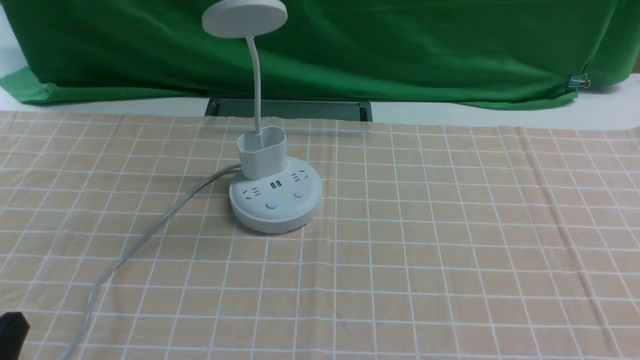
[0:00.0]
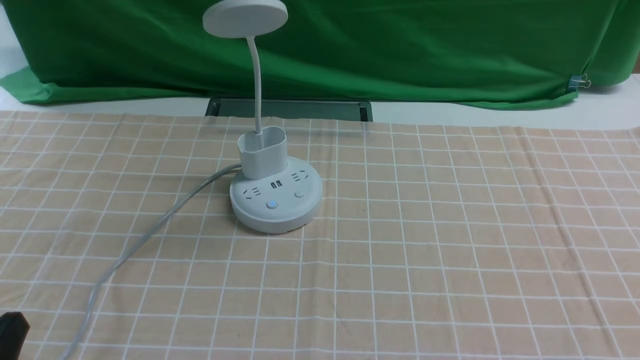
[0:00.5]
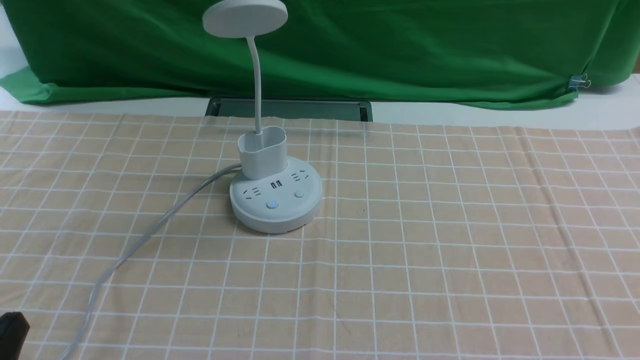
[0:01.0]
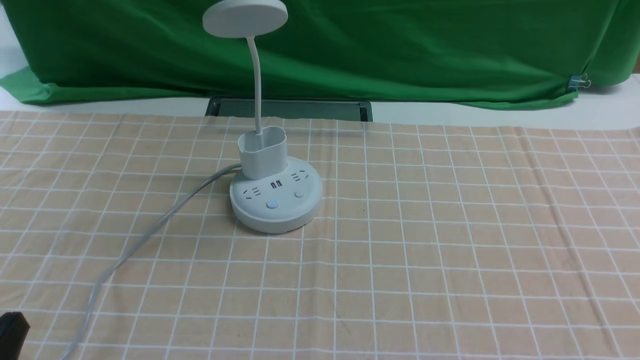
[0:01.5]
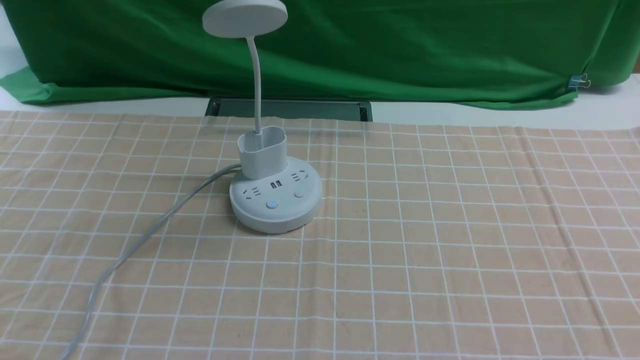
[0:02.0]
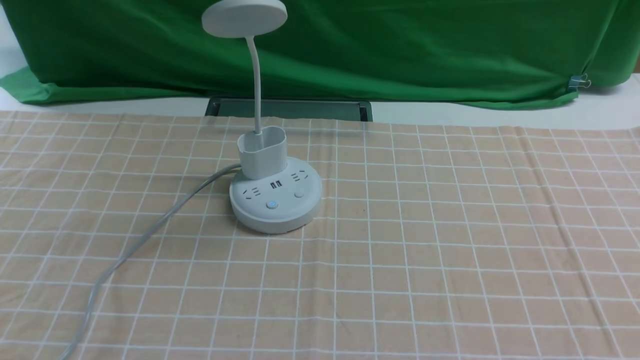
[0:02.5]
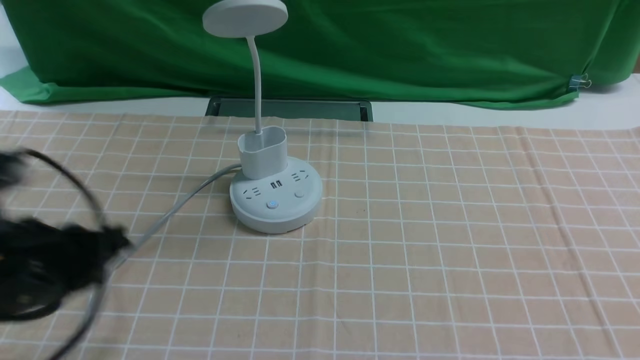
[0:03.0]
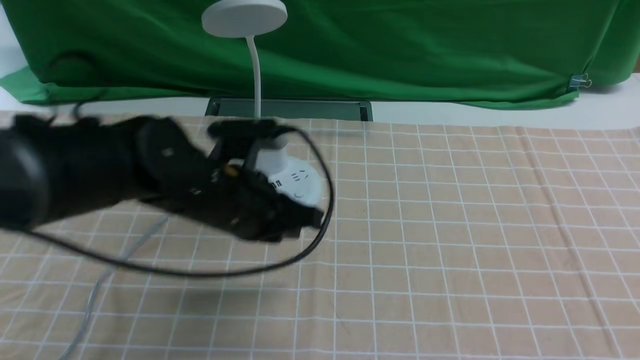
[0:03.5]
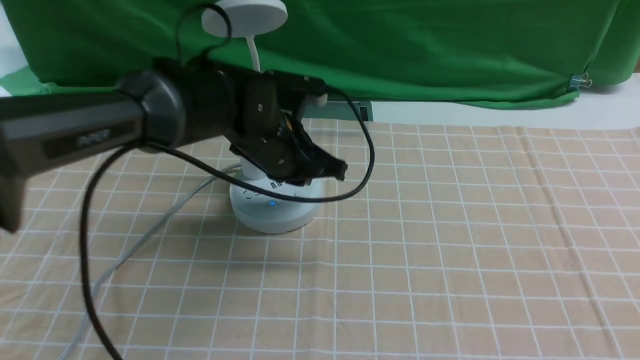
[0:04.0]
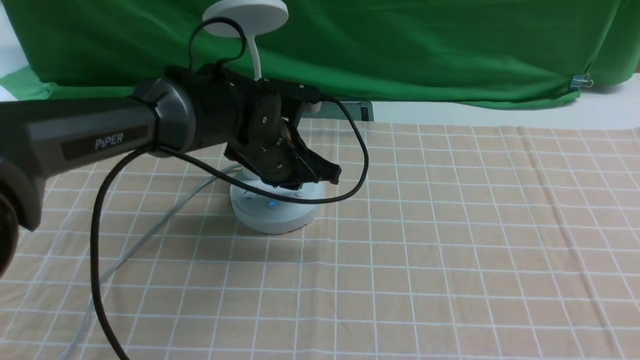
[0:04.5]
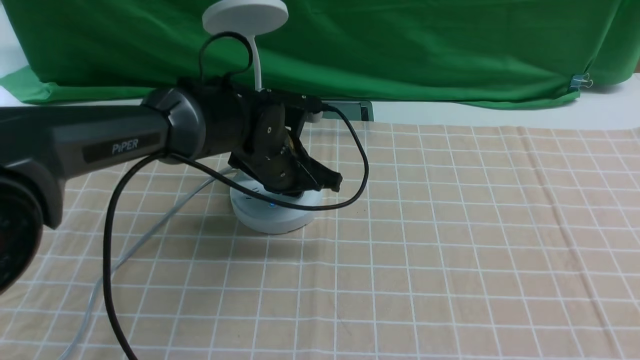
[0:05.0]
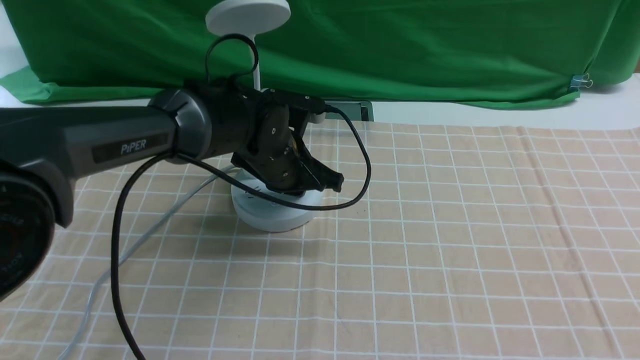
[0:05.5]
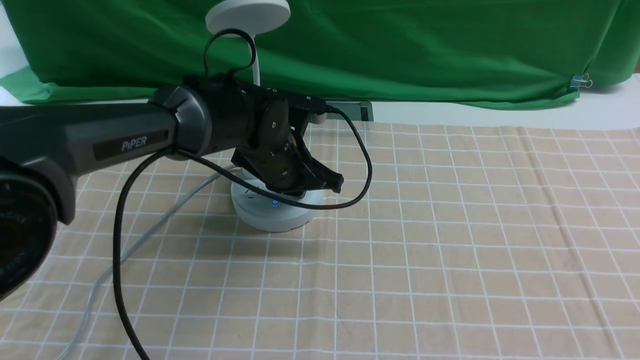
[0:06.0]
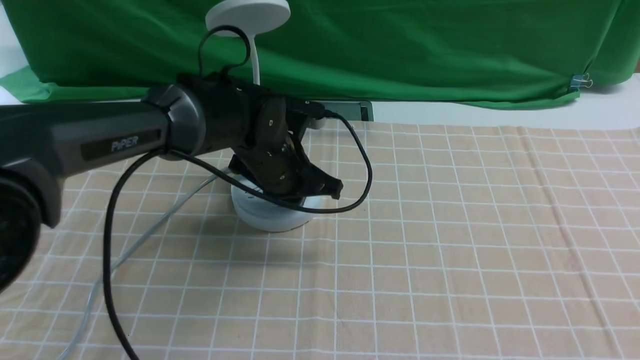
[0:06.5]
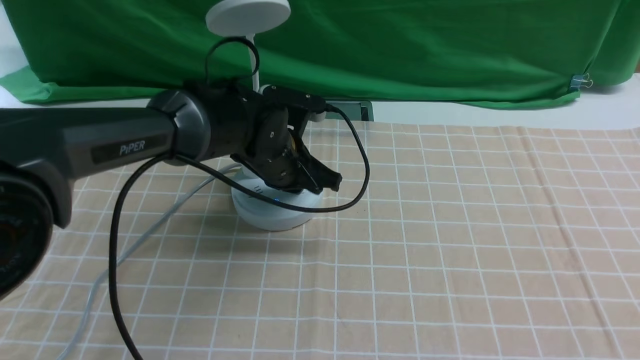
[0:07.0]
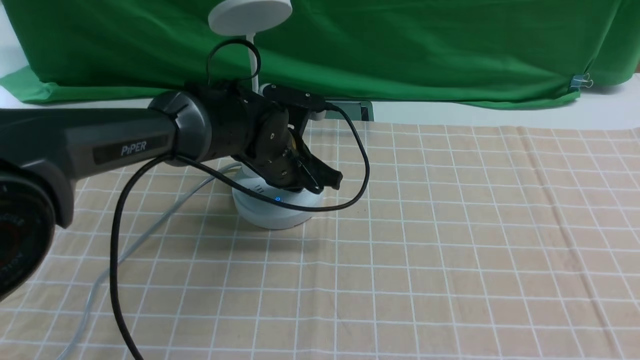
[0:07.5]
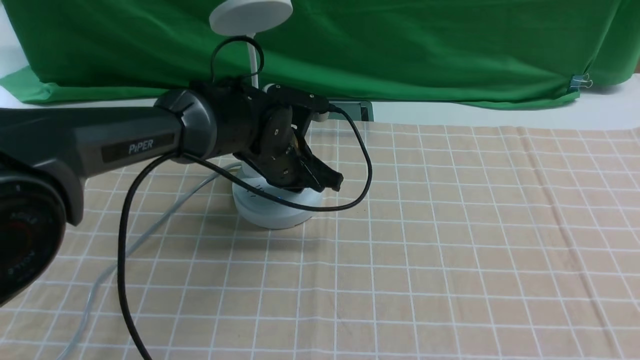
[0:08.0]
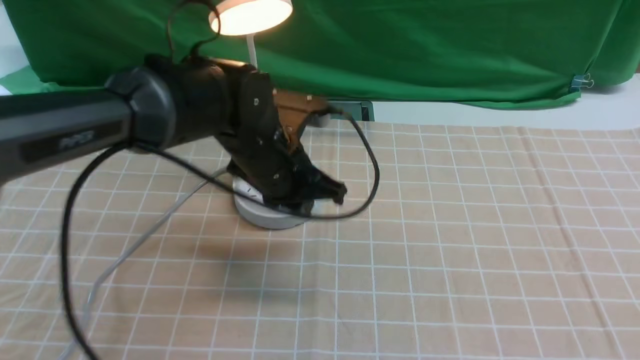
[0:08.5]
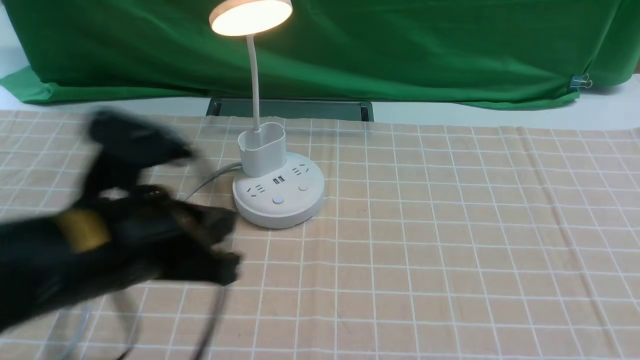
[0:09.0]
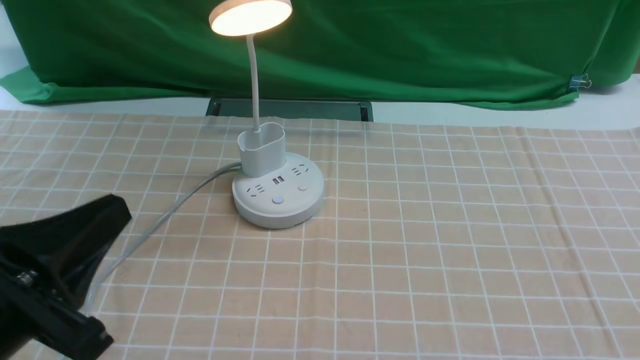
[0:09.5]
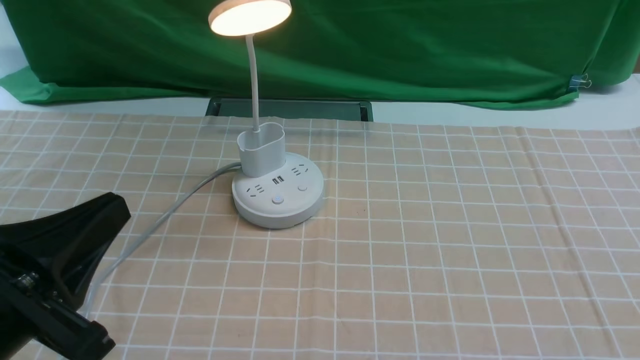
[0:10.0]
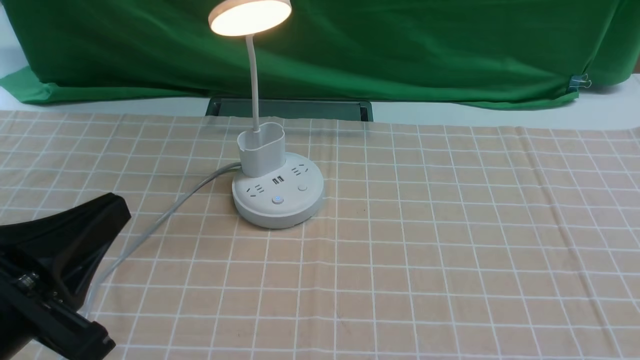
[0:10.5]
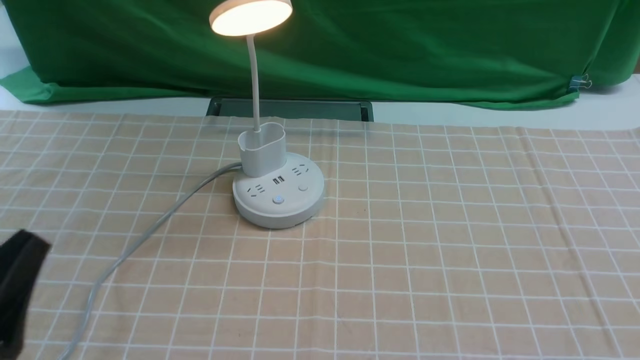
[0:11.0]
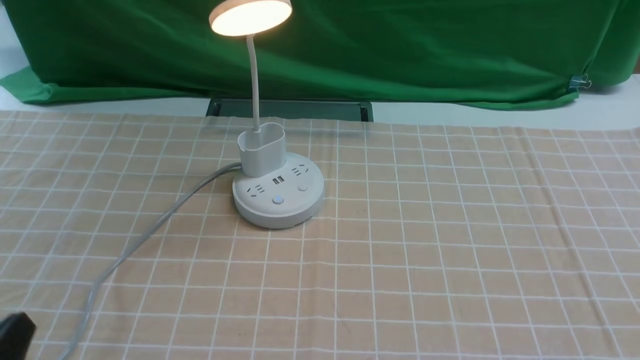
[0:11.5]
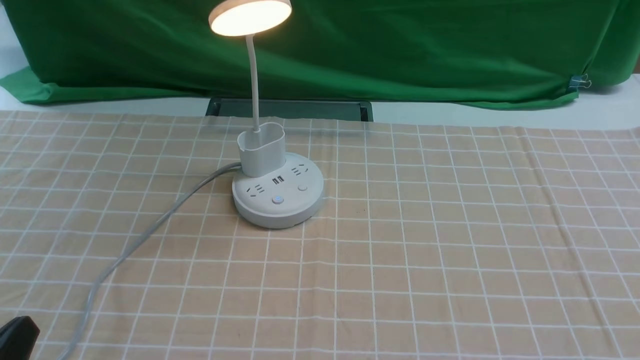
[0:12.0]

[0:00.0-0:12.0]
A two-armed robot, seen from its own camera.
Step, 0:00.0 to 0:08.5: use the left arm to press the button switch on the lamp holder.
0:02.0 to 0:04.0: The left gripper travels forward and to the right by approximately 40 cm.
0:04.0 to 0:08.0: The grippers make only small movements.
0:08.0 to 0:10.0: The left gripper is displaced backward and to the left by some 35 cm.
0:10.0 to 0:12.0: The left gripper travels downward and to the left by some 10 cm.

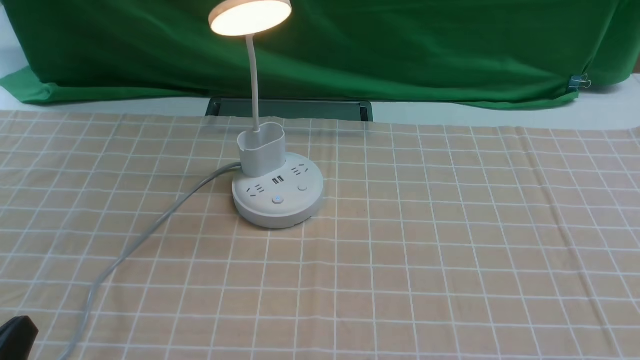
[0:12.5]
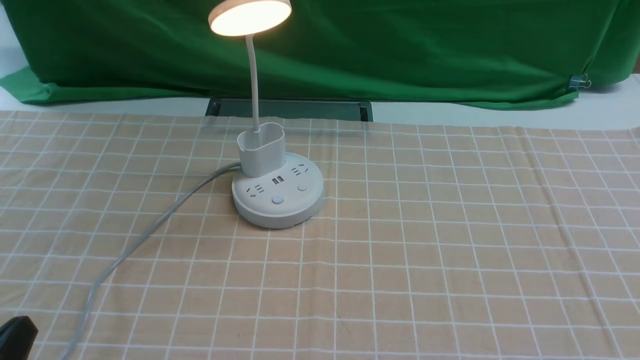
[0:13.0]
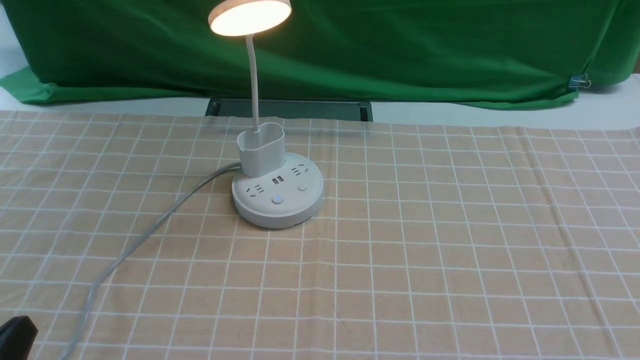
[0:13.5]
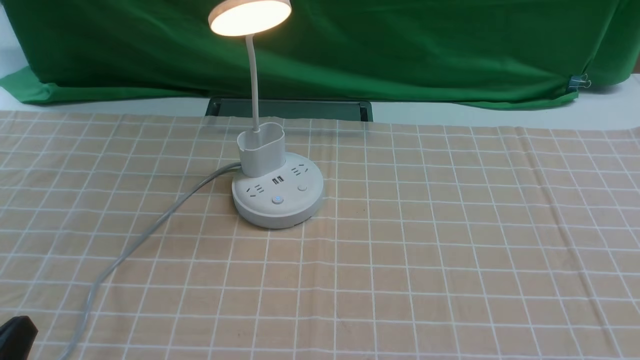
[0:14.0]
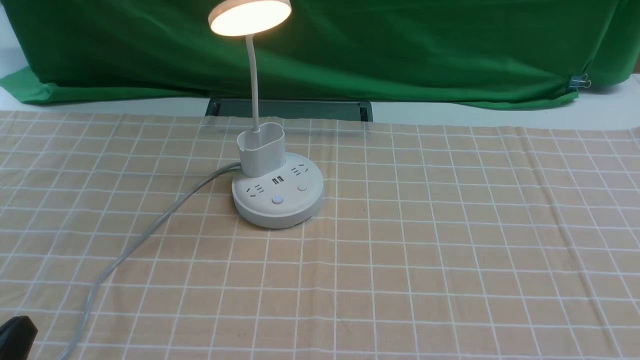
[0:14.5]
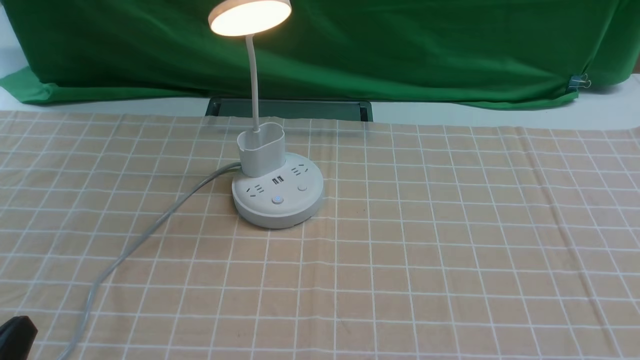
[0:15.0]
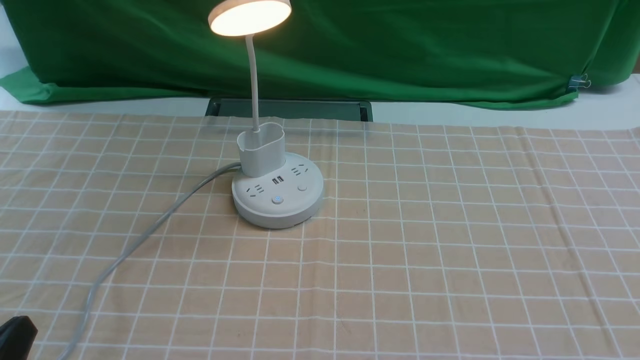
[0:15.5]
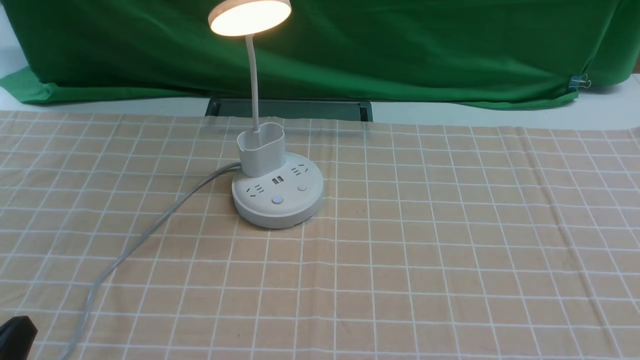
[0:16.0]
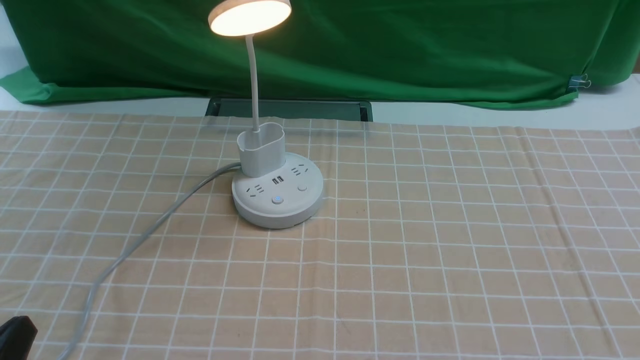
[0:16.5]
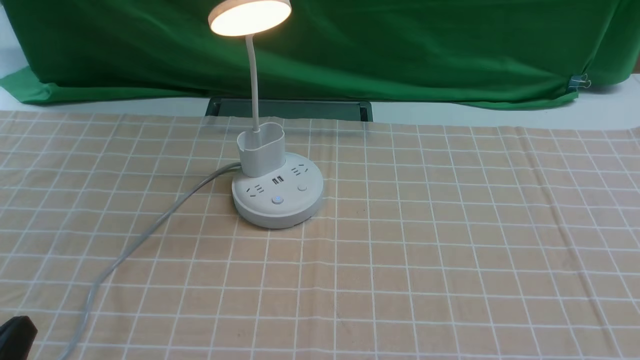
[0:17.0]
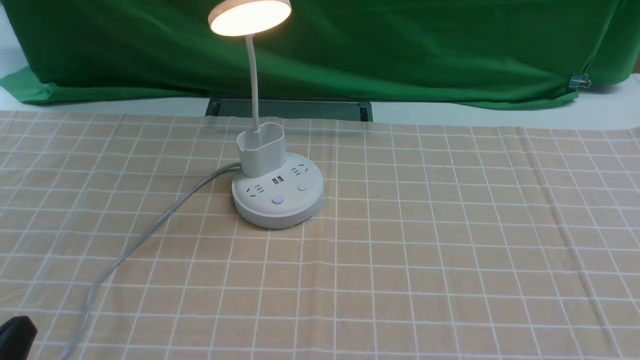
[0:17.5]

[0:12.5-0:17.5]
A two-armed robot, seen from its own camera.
0:12.5 to 0:17.5: The two grippers keep their place.
